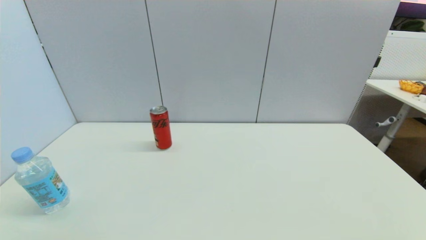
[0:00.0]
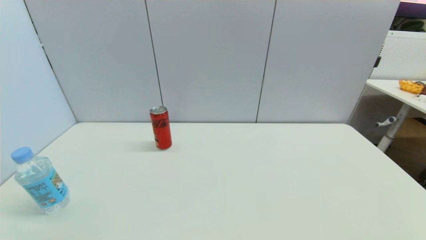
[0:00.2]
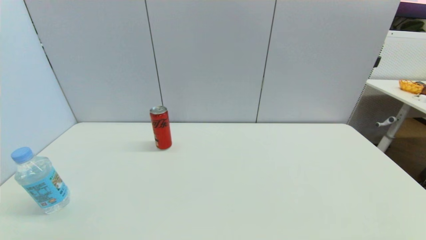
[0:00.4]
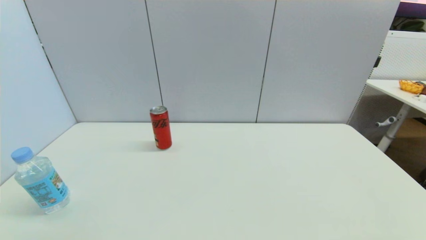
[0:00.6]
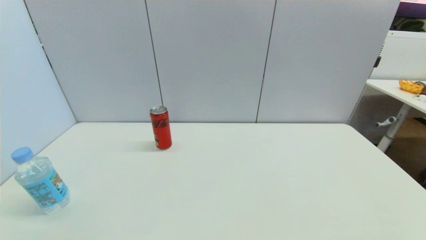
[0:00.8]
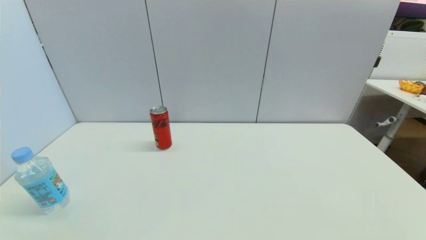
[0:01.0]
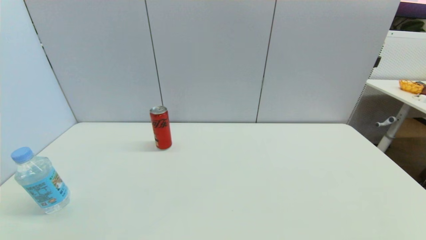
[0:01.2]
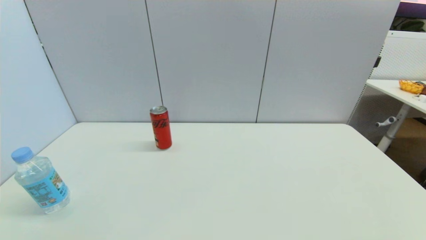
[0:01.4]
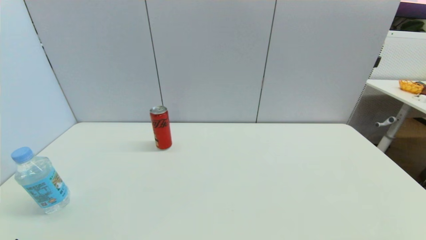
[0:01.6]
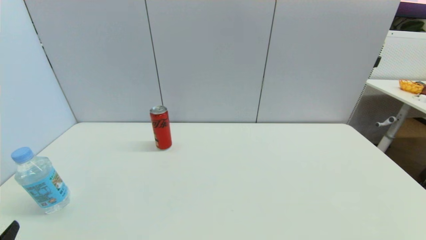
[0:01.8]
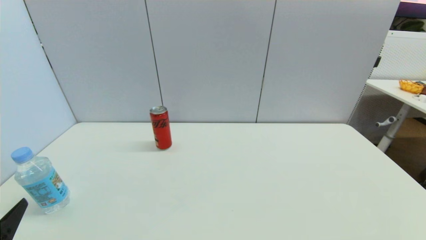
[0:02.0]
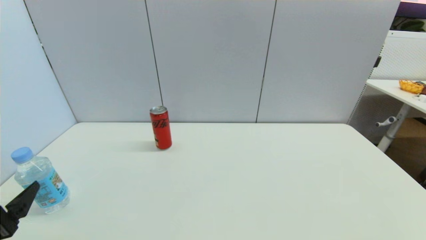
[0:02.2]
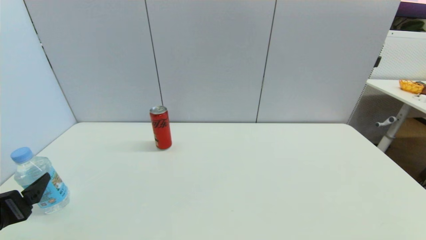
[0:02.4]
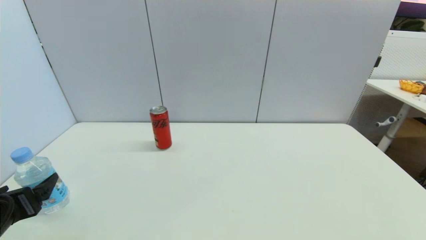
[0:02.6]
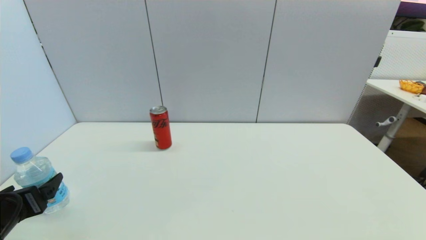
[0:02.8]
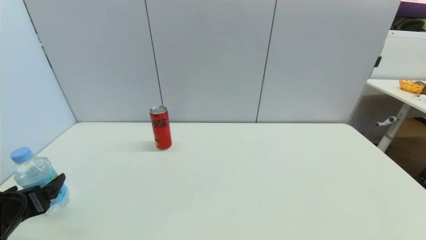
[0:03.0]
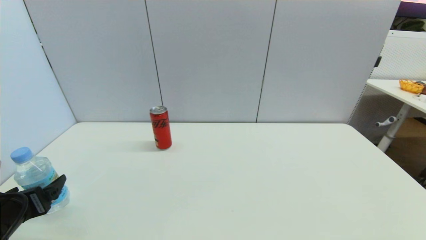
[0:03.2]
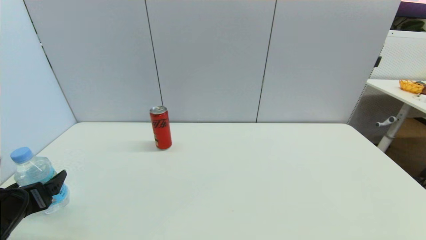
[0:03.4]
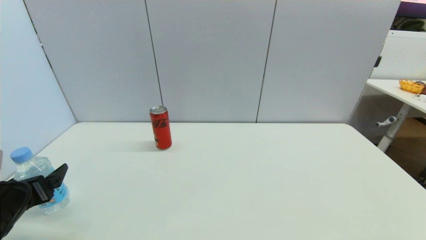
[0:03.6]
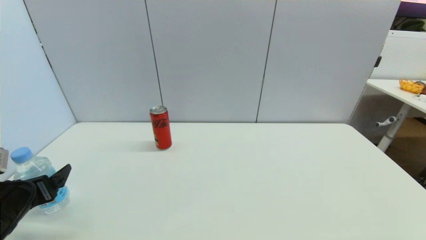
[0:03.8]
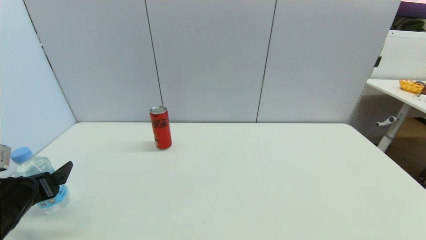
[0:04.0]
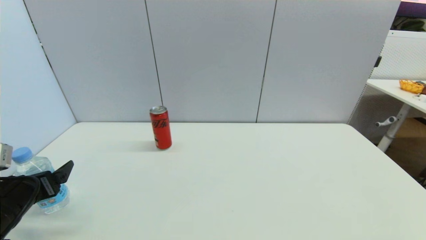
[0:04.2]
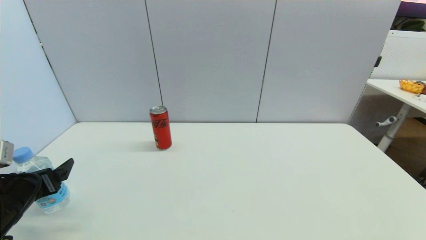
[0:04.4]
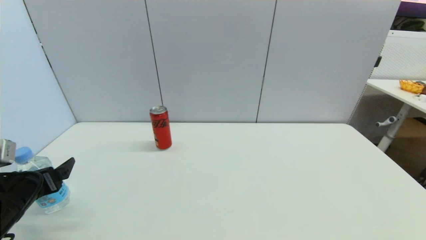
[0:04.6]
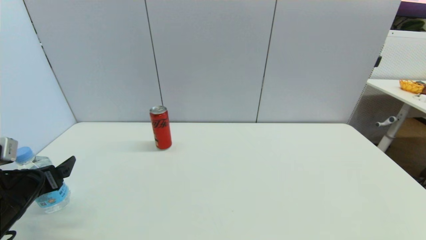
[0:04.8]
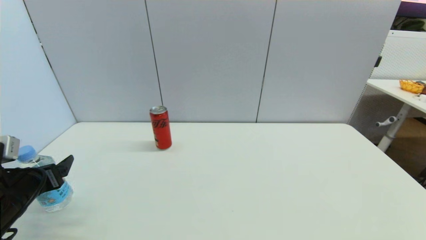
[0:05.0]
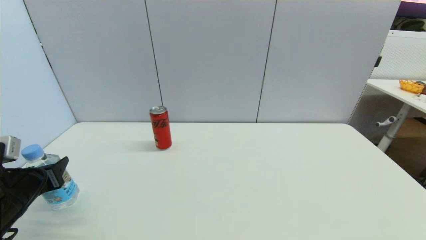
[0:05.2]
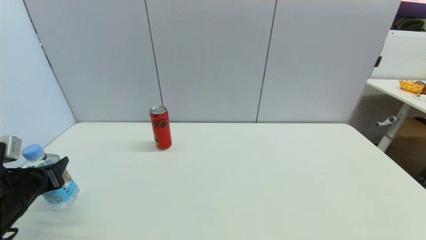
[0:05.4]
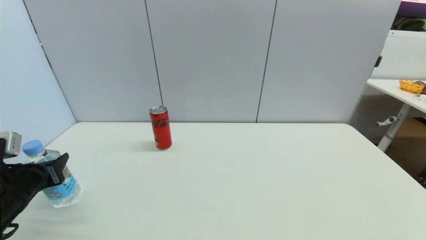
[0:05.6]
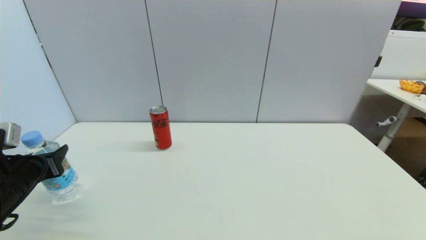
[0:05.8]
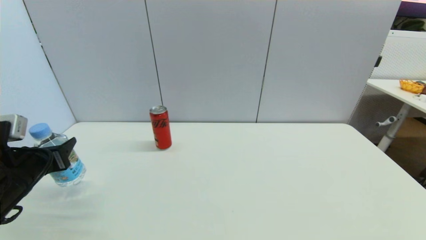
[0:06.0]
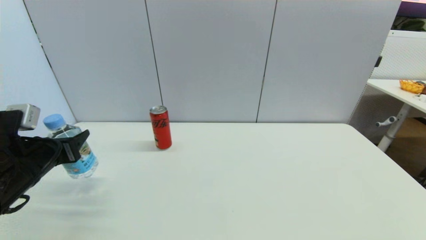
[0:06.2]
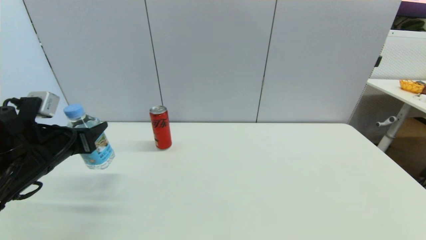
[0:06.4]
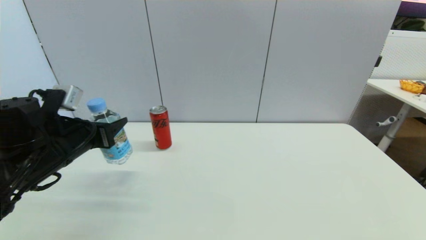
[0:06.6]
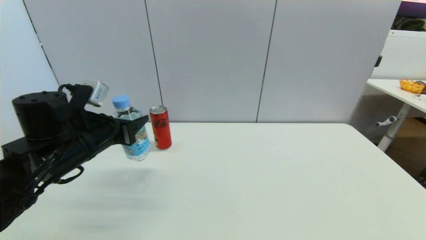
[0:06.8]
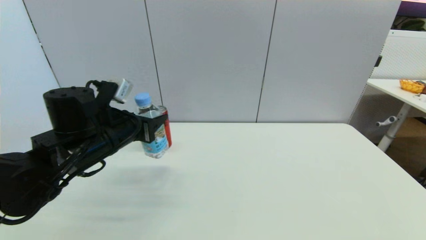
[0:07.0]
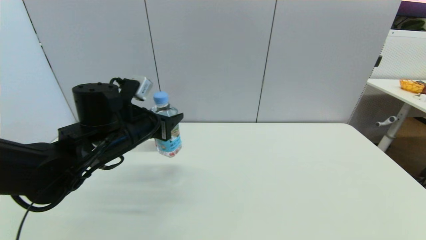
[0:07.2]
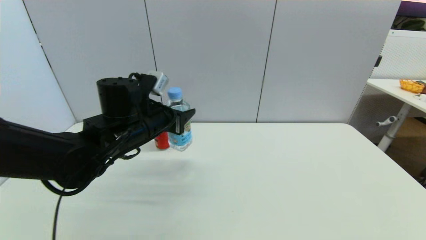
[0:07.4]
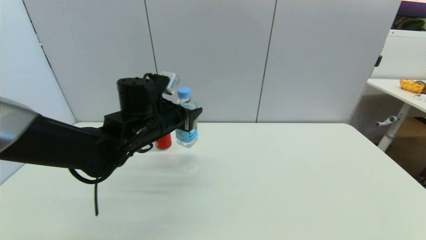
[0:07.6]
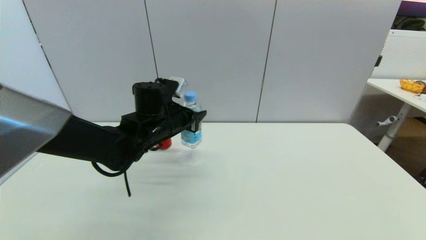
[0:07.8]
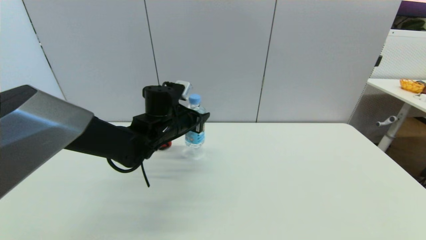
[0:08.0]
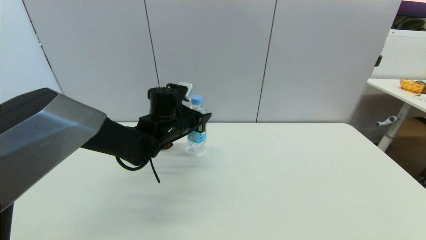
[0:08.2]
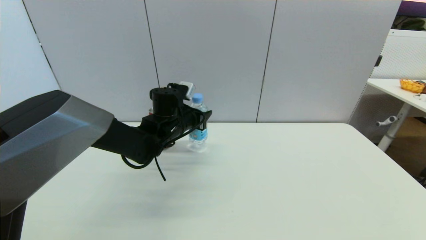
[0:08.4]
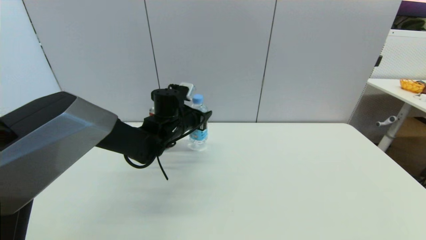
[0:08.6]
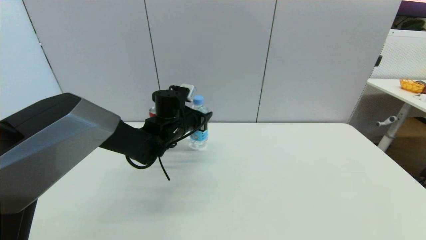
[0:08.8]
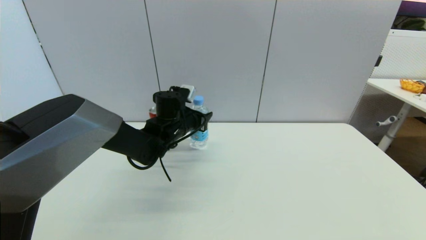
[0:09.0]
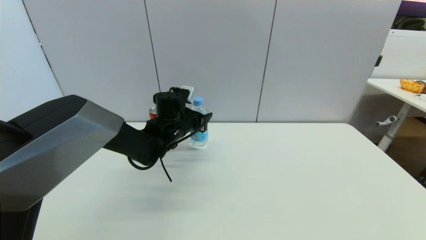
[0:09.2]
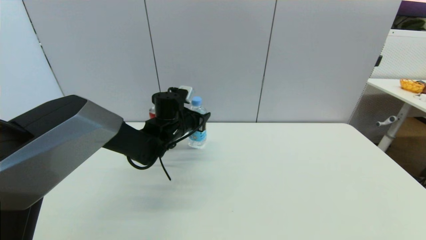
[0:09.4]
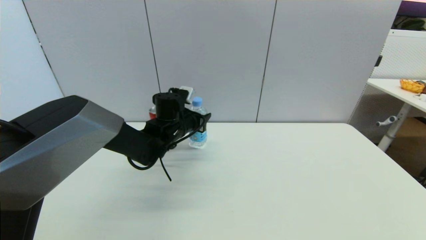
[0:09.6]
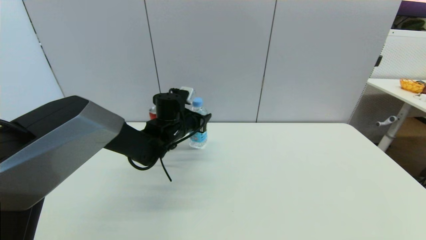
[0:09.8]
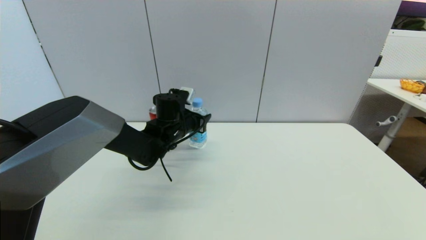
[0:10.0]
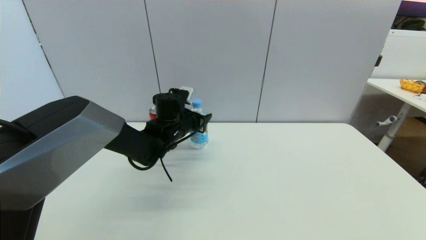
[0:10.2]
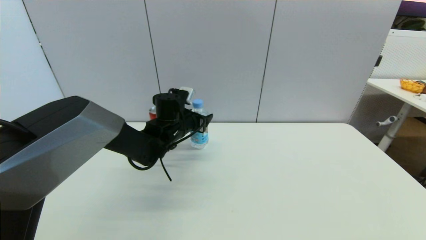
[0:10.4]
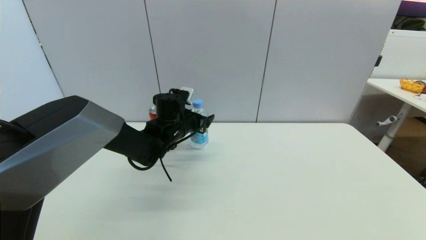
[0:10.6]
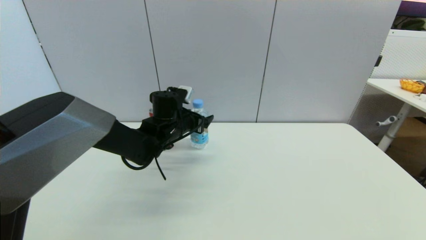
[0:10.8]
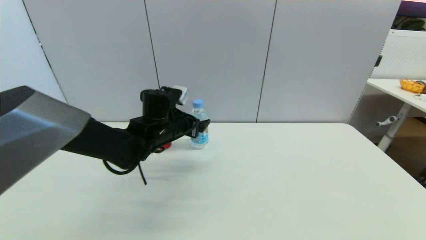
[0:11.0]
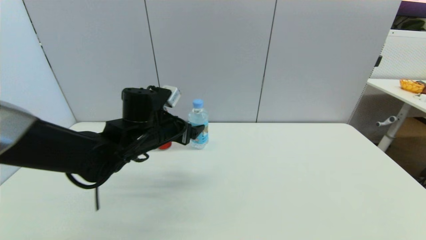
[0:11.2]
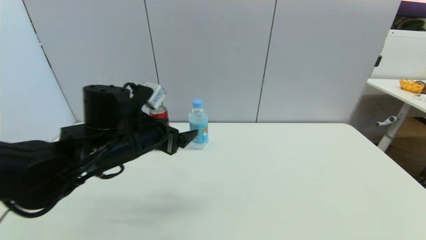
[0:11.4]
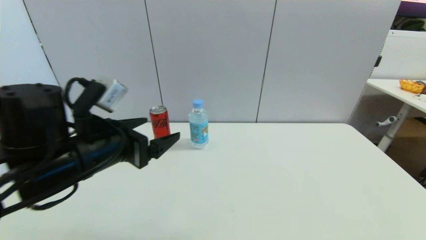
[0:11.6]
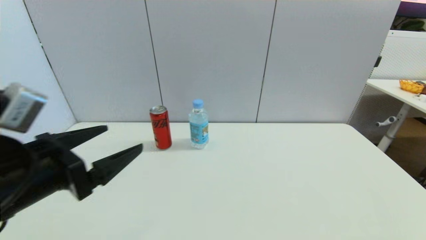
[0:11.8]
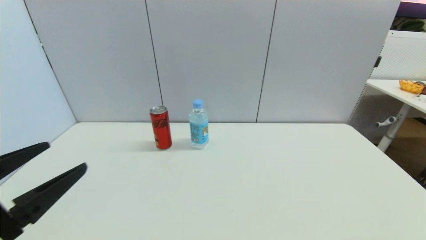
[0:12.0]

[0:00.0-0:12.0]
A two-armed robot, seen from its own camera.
Step, 0:01.8 to 0:05.6: Grasp the soda water with left gripper.
Step, 0:05.8 to 0:10.2: Place the soda water on the table with left gripper.
0:01.6 to 0:03.0: The left gripper goes about 15 cm forward.
0:03.0 to 0:04.4: The grippers move only a little.
0:04.4 to 0:06.0: The left gripper closes up.
0:06.0 to 0:07.6: The left gripper shifts about 25 cm to the right and forward.
0:07.6 to 0:09.0: The left gripper shifts about 10 cm forward and downward.
0:09.0 to 0:10.4: The left gripper opens.
0:10.4 to 0:12.0: The left gripper moves backward and to the left, some 35 cm, and opens up.

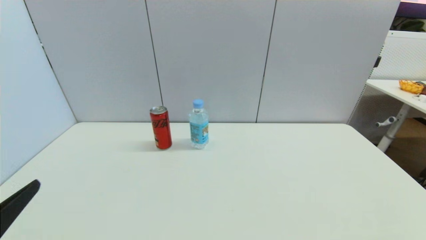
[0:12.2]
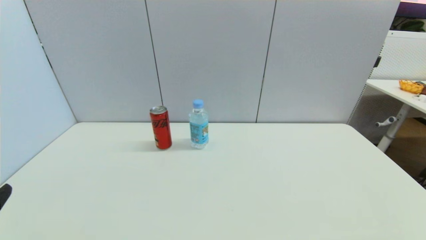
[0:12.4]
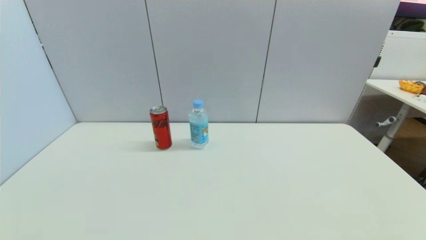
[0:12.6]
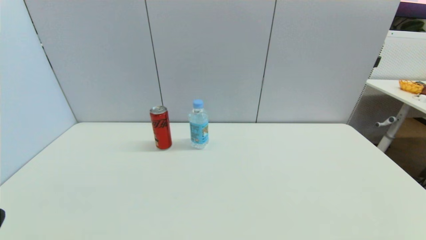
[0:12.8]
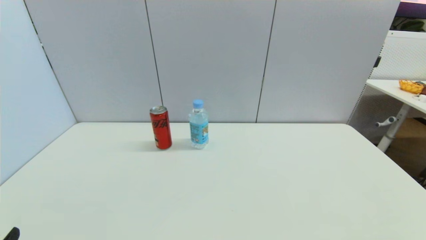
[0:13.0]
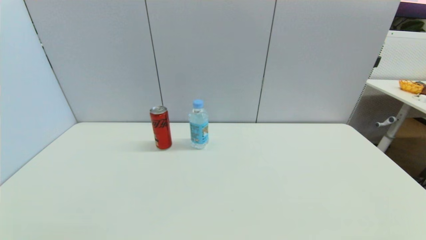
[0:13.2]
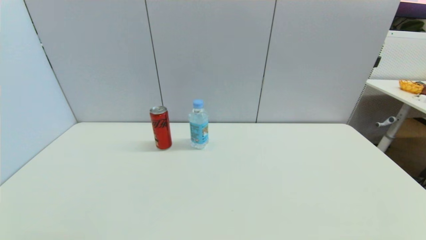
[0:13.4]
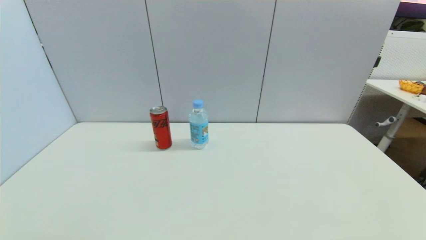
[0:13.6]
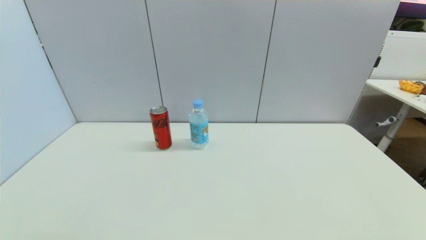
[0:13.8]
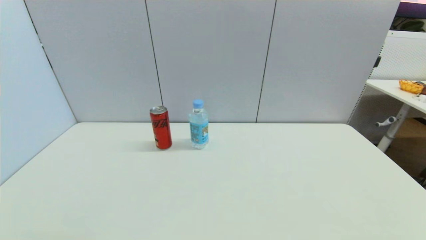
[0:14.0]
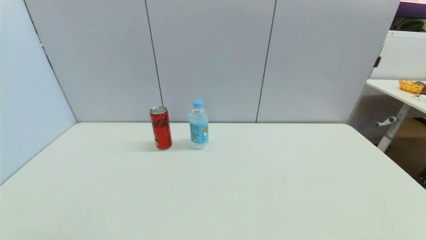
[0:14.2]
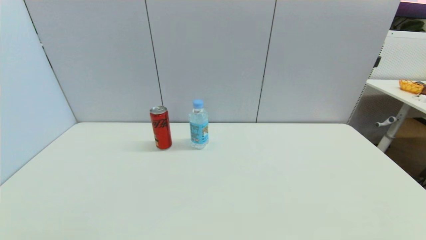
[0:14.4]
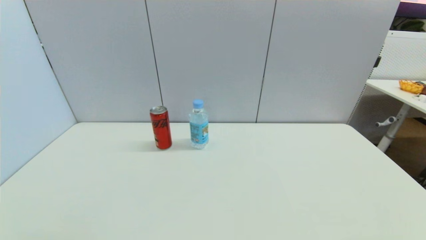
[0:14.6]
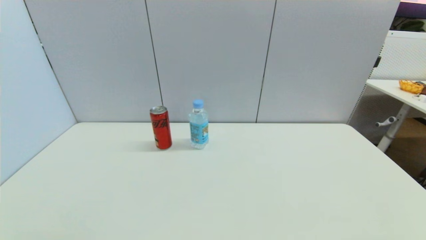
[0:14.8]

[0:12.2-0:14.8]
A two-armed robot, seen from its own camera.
0:12.2 to 0:13.4: The left gripper moves downward and backward, about 15 cm.
0:13.4 to 0:14.8: Neither gripper changes place.
